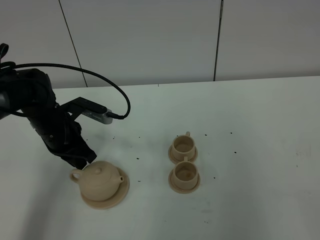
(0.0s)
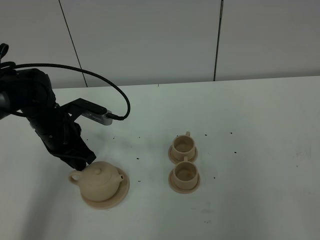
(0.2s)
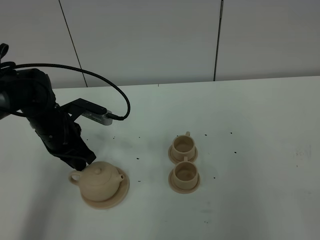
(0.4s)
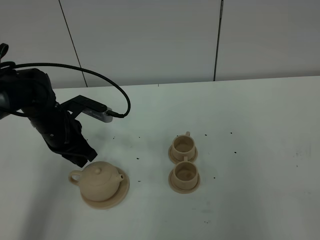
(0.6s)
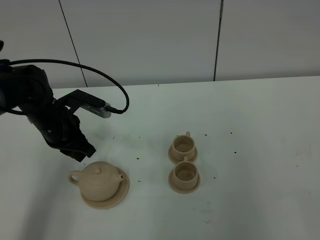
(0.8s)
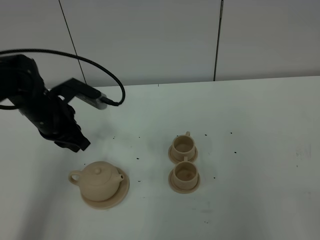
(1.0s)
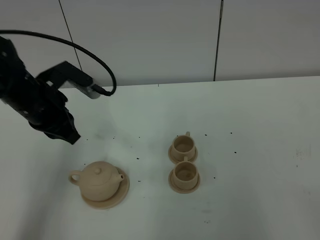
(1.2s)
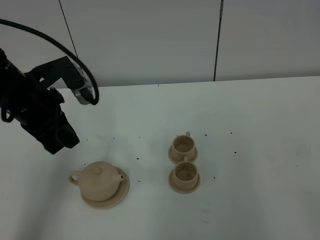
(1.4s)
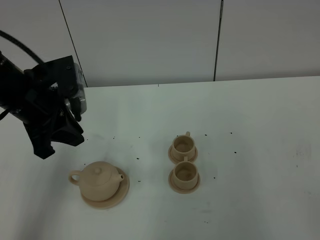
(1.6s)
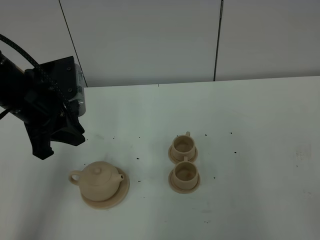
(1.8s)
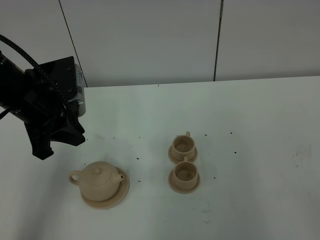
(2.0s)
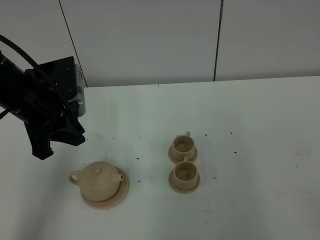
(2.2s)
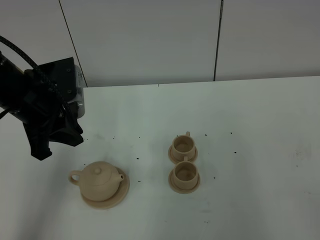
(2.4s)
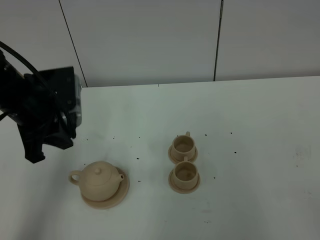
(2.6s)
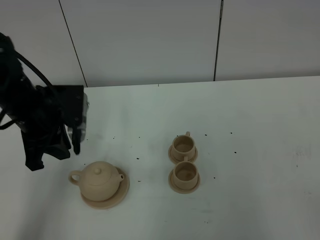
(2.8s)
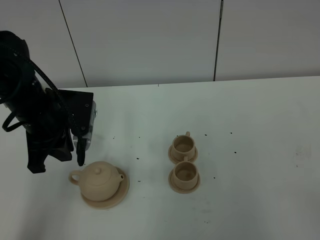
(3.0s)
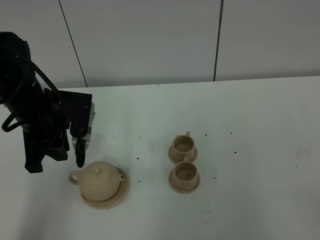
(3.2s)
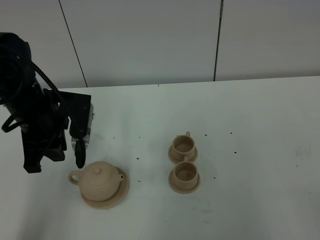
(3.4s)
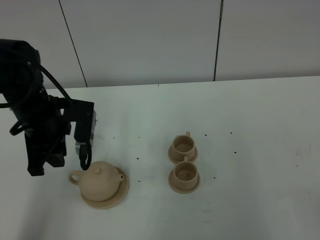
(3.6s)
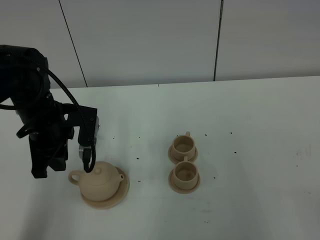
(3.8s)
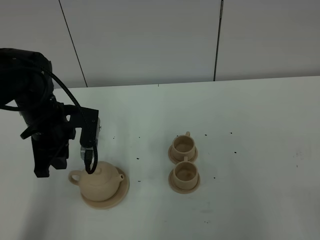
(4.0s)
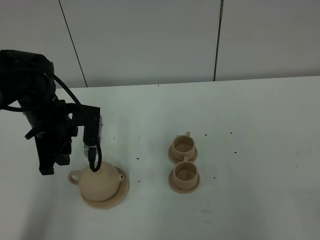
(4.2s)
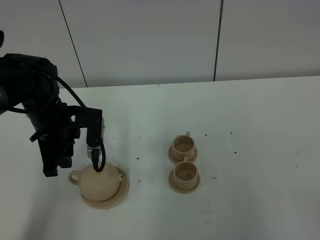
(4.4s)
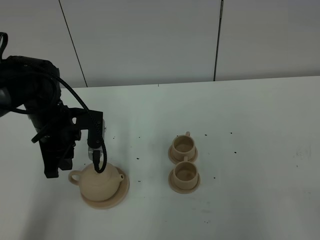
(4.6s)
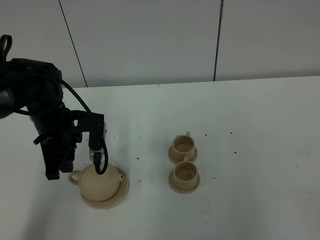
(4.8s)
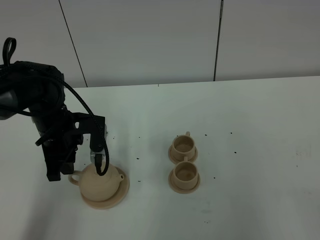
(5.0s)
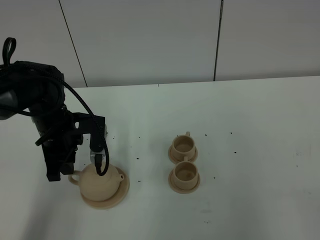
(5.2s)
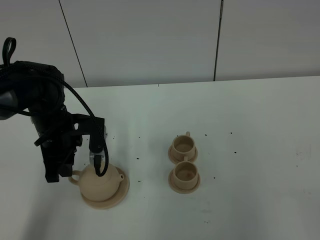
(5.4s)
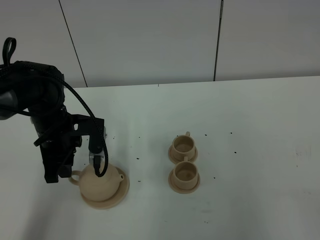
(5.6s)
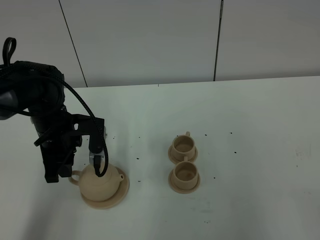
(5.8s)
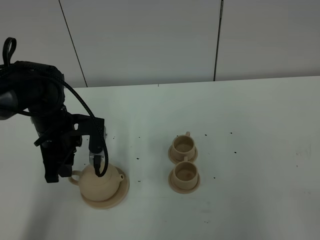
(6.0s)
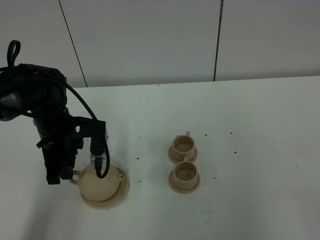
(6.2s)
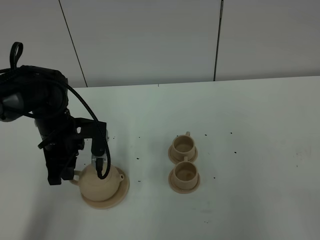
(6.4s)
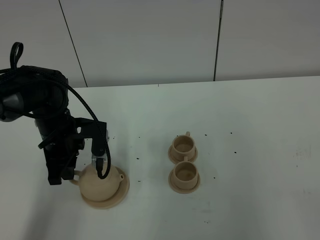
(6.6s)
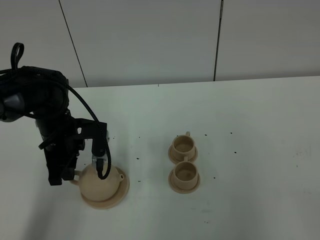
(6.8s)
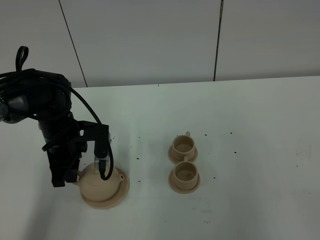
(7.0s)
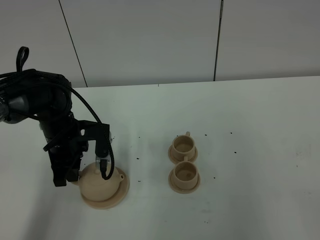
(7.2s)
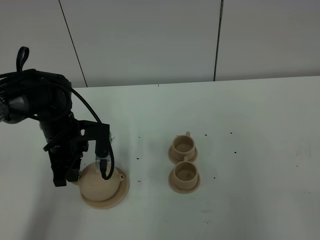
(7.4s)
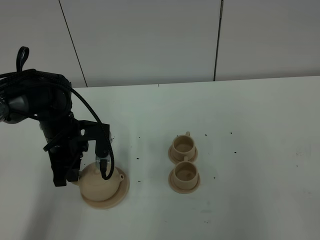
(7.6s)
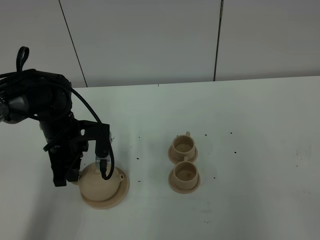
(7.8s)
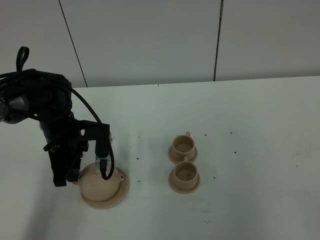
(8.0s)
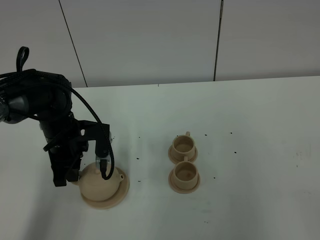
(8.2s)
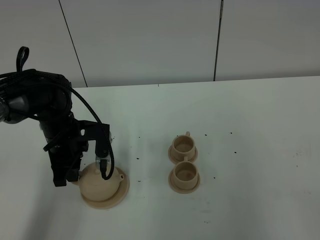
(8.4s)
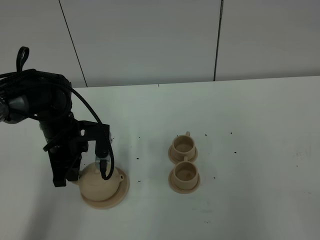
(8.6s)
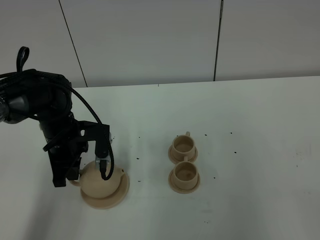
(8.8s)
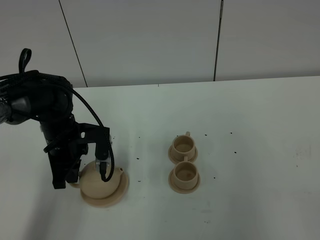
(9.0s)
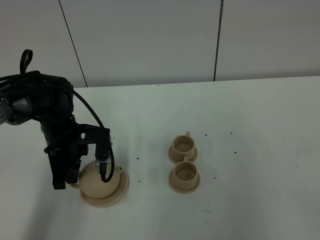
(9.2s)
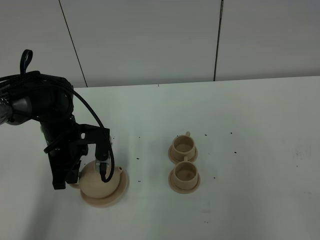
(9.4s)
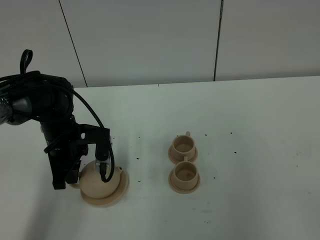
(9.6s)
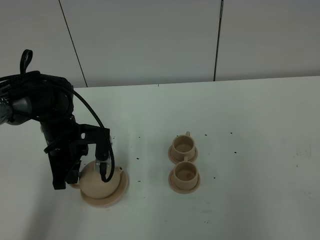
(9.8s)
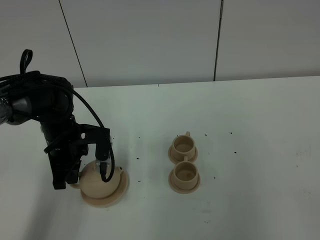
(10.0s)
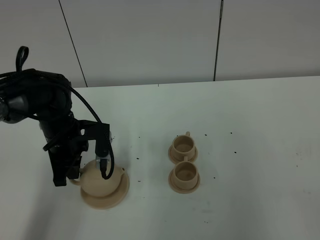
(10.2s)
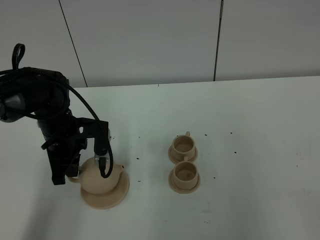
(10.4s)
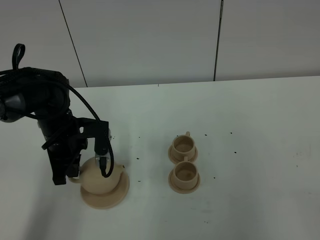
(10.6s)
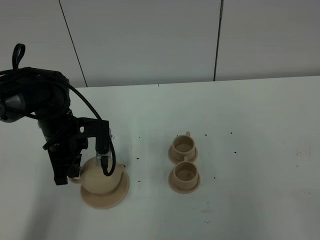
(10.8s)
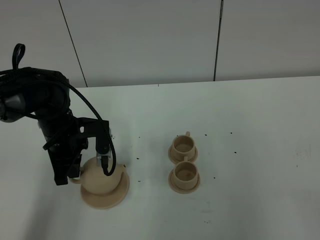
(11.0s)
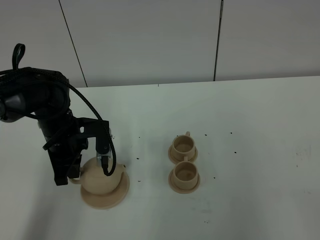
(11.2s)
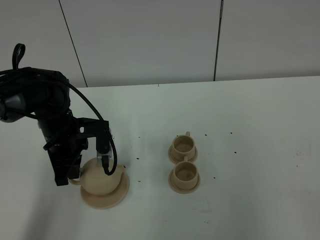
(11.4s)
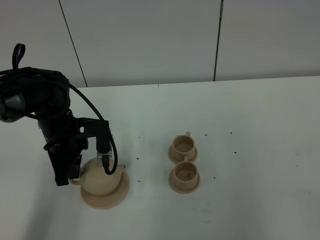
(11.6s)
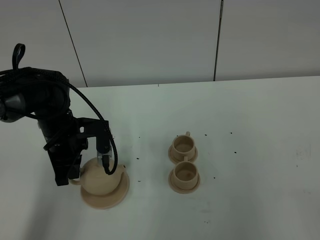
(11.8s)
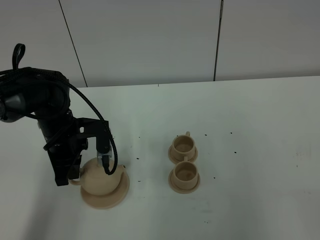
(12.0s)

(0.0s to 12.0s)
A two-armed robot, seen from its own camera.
Task of the whole recording: grasp the brown teapot and pour the tea into the two brown teacups one by one, put the brown teapot back in its original place.
0.0s - 1.6s: The left gripper shifts roughly 15 cm upward and backward.
3.0s - 4.4s: The left gripper goes about 5 cm downward.
4.4s - 7.6s: The grippers make only small movements.
7.6s - 9.0s: The left gripper closes.
9.0s - 10.4s: The grippers make only small movements.
10.4s - 12.0s: Both grippers stay put.

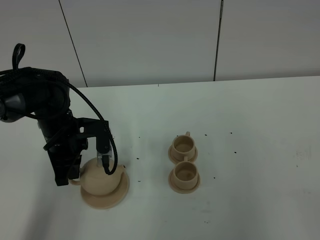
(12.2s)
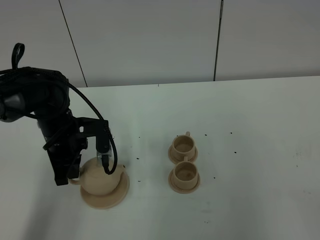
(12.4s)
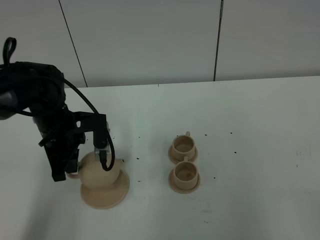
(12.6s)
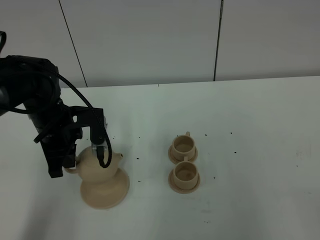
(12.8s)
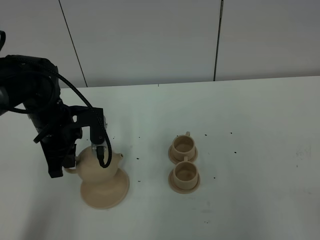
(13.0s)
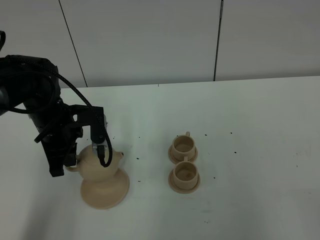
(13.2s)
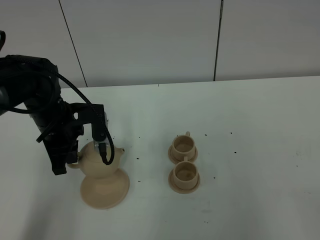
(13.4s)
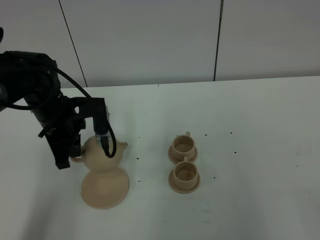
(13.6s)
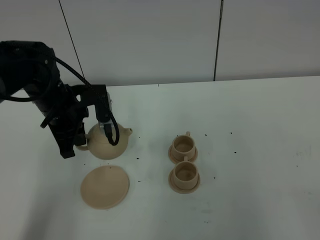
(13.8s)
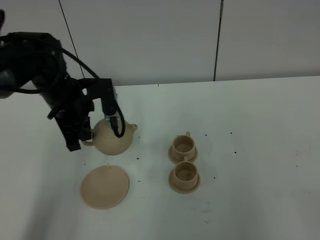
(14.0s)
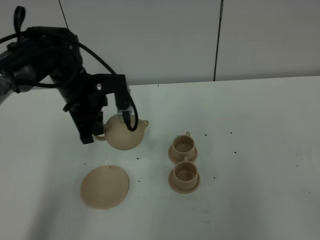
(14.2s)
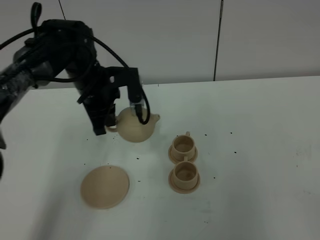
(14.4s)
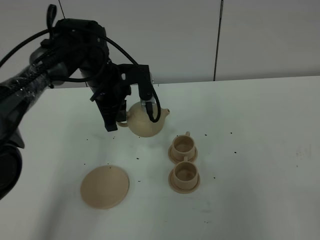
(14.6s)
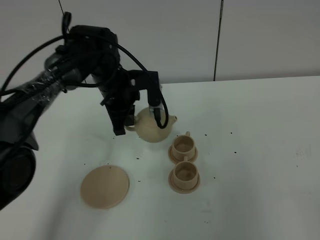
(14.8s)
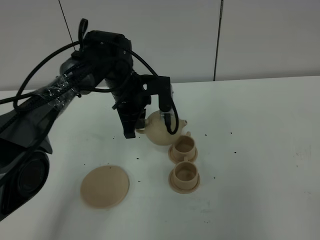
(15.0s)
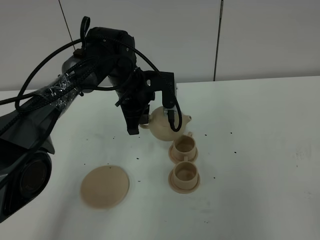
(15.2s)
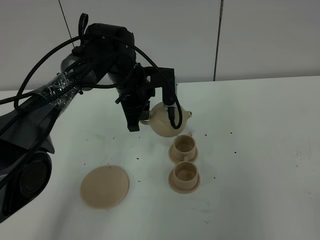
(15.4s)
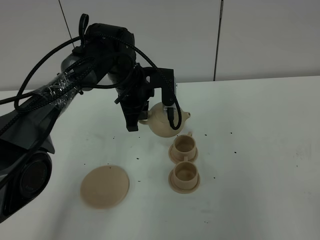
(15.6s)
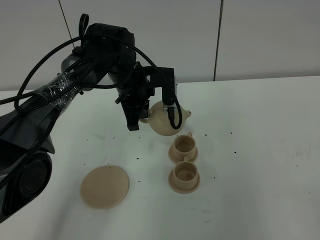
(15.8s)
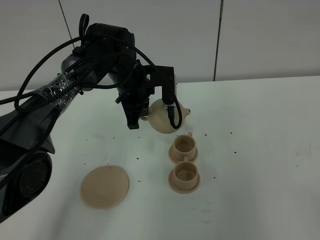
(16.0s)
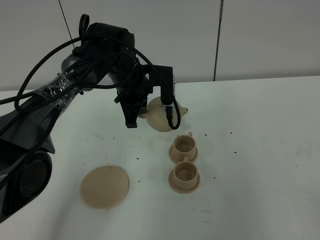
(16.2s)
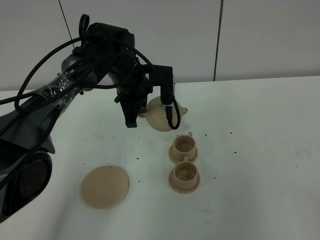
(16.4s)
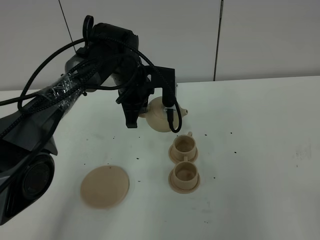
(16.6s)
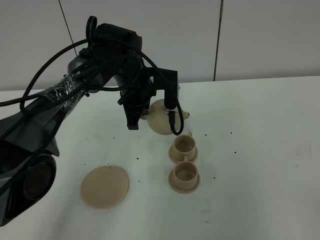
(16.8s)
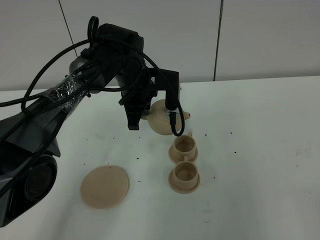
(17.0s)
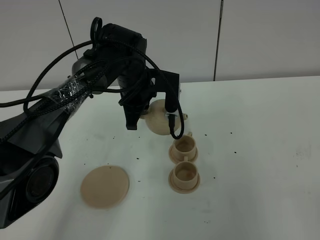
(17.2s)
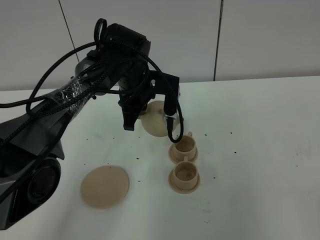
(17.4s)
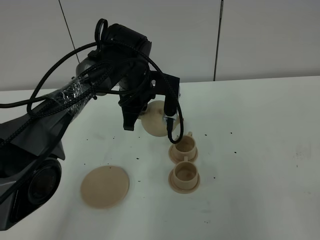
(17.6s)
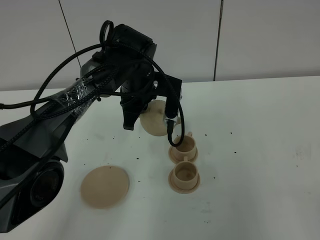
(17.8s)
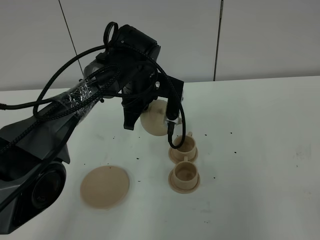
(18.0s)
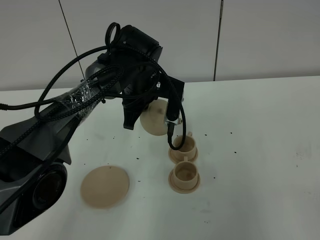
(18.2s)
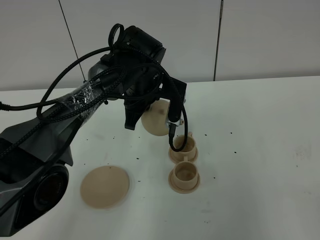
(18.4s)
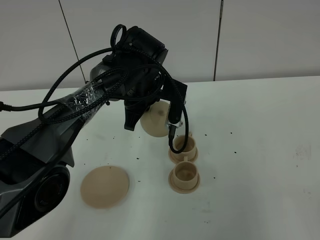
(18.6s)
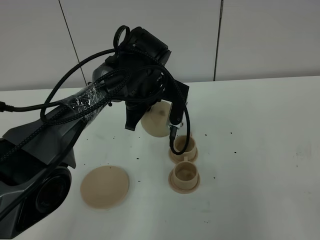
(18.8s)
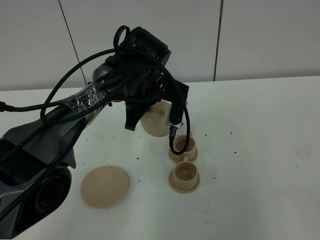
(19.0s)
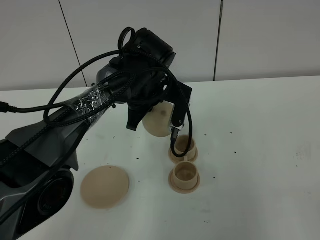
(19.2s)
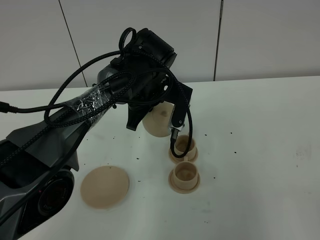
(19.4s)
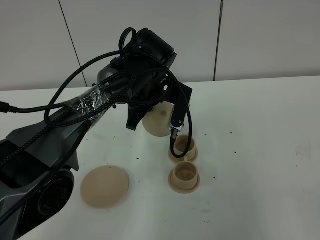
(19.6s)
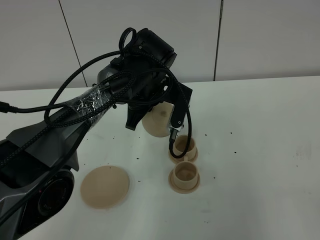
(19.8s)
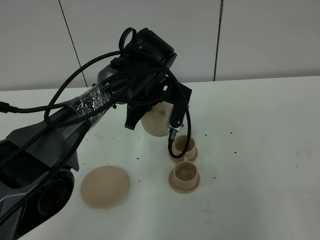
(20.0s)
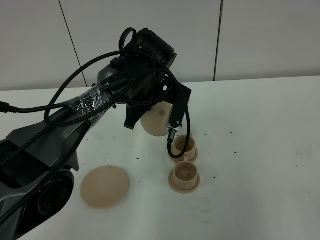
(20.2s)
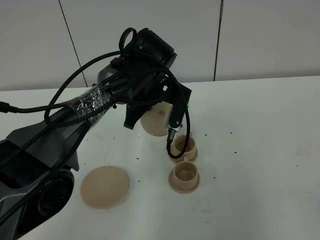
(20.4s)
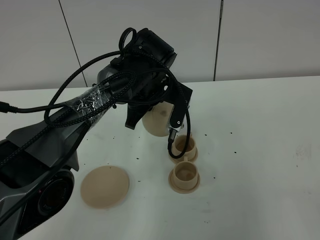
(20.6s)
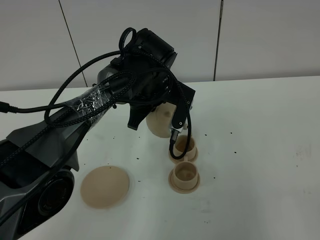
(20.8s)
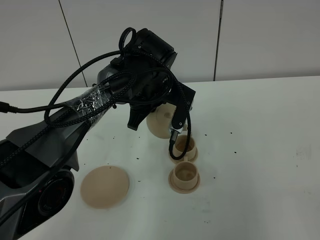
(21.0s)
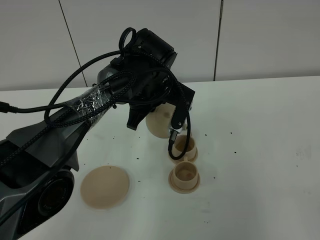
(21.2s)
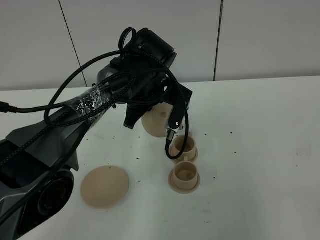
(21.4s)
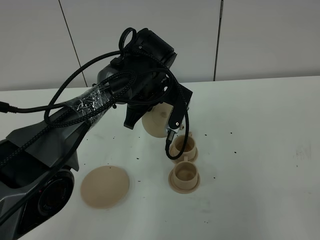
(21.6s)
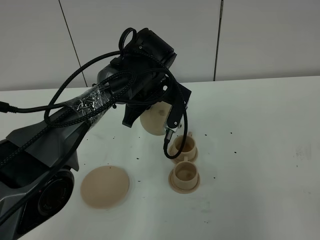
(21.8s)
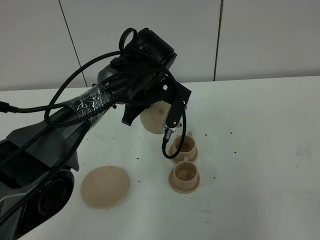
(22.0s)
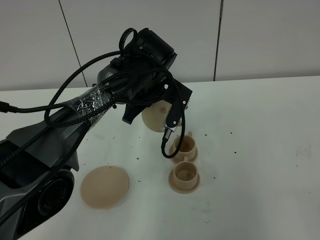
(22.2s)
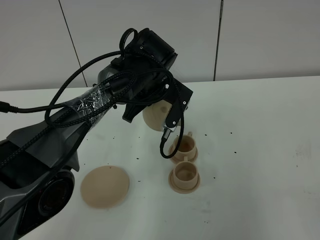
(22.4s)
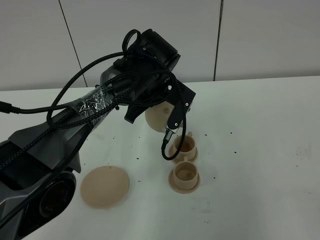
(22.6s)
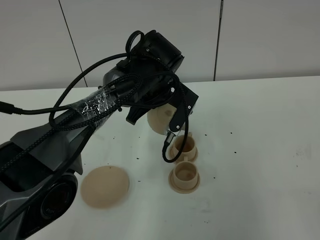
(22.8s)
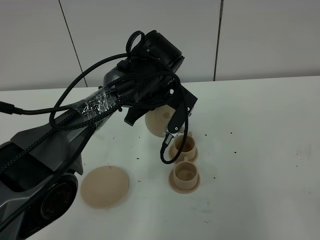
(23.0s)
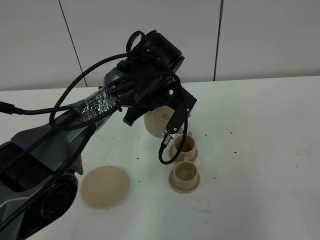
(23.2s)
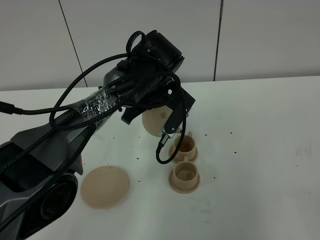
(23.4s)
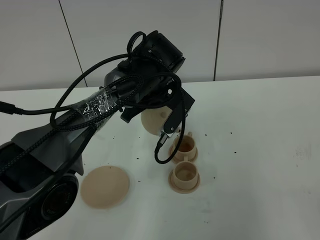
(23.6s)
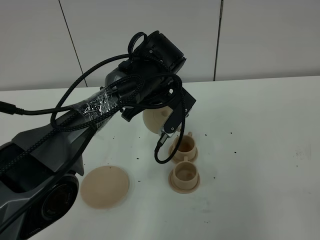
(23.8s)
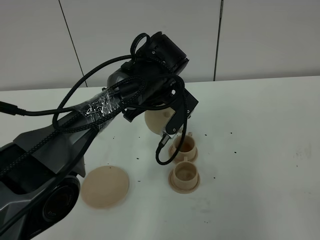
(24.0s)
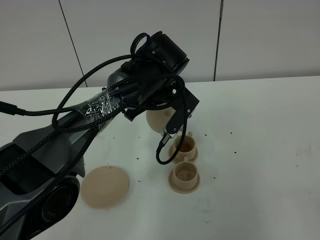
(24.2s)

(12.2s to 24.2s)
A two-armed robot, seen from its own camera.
Task of the whole recording: grasp the brown teapot and pour the tea into the two brown teacups one by one, put the brown teapot back in its original place.
12.2s - 13.8s: The left gripper travels upward by approximately 5 cm.
13.8s - 15.2s: The left gripper is displaced to the right and forward by roughly 15 cm.
15.2s - 16.6s: The grippers move only a little.
16.6s - 18.2s: The grippers stay close to where they were, moving slightly.
18.2s - 19.8s: The grippers make only small movements.
19.8s - 21.2s: Both grippers stay put.
21.2s - 24.2s: The grippers stay close to where they were, moving slightly.
